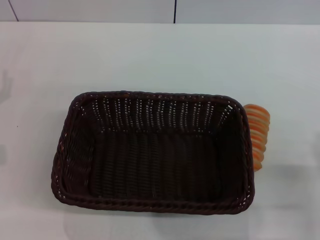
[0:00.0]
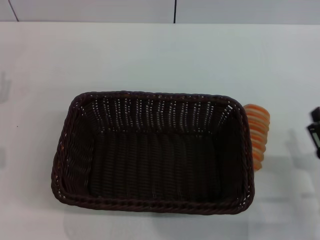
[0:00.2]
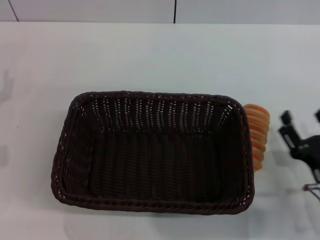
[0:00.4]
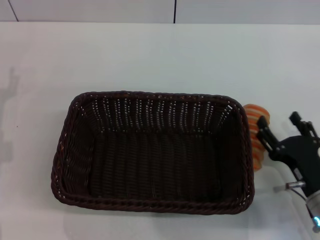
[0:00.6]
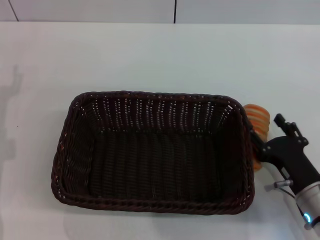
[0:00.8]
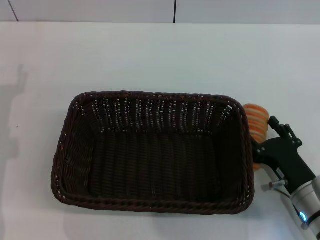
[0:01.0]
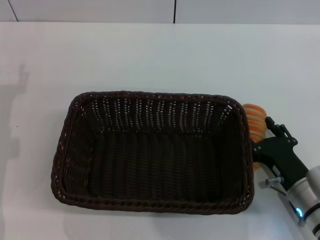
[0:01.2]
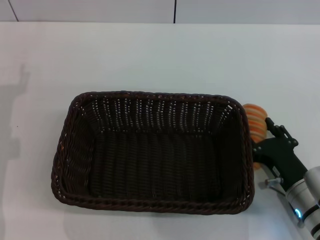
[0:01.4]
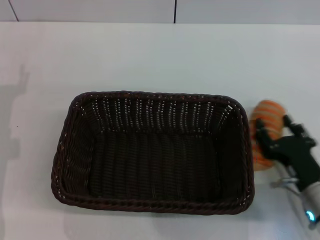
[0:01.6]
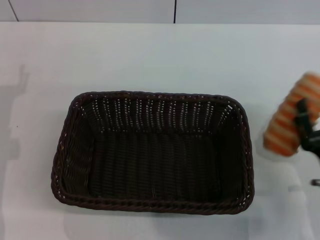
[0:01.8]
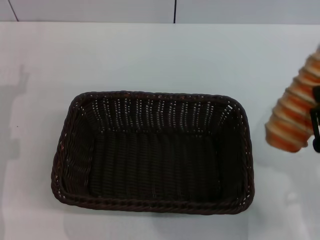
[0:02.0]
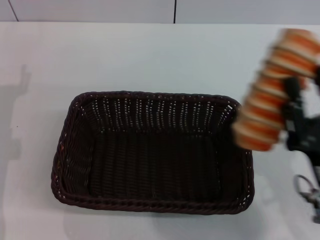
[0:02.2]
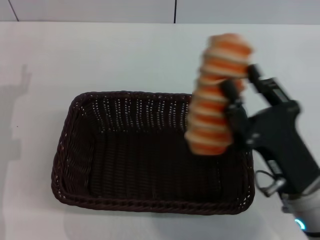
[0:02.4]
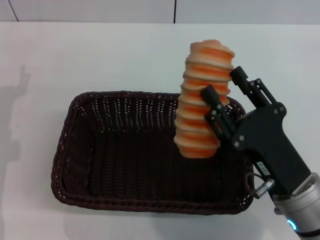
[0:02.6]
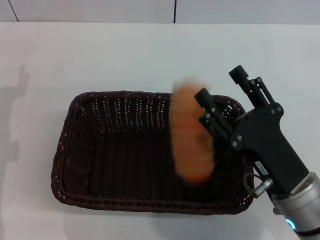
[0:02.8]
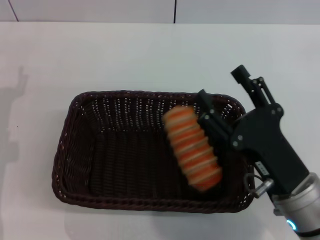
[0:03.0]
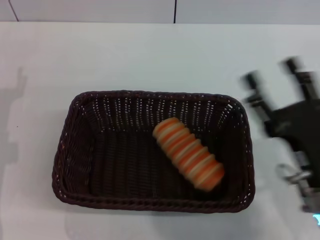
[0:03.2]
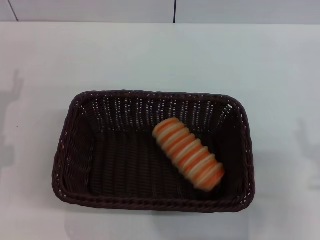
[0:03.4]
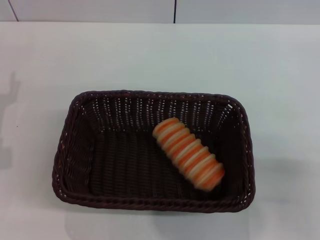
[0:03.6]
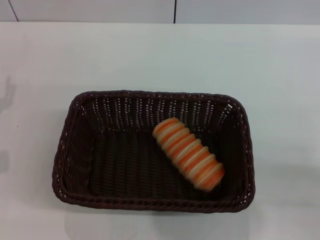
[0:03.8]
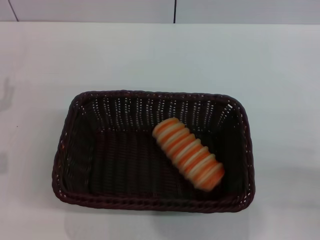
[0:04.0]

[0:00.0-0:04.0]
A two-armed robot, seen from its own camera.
Step, 0:00.0 to 0:01.8: Pick up the long bread with the right gripper.
Step, 0:02.0 to 0:03.0: Place the long bread into the dark basket with the right gripper.
0:00.0 to 0:01.4: The right gripper heads forward and to the left, covering some 10 cm.
0:01.4 to 0:02.6: The right gripper is displaced upward and to the left by approximately 10 cm, and closes up.
0:02.6 to 0:04.0: The right gripper moves to the right, roughly 15 cm, and opens its fingers.
